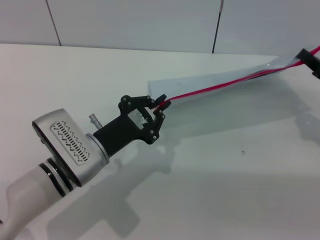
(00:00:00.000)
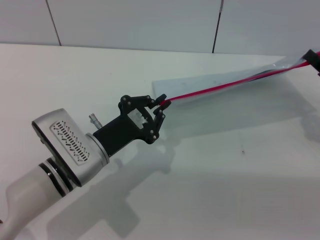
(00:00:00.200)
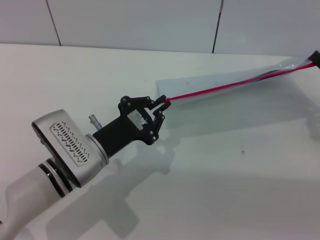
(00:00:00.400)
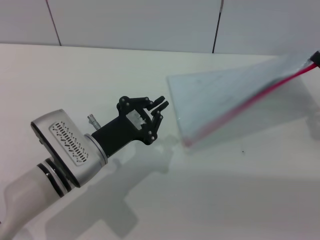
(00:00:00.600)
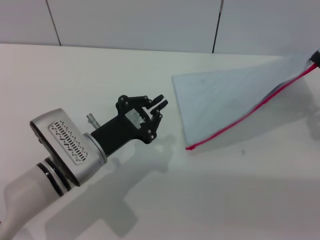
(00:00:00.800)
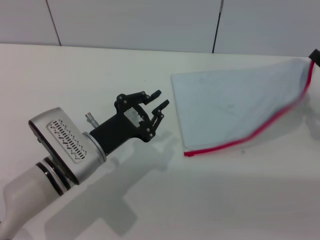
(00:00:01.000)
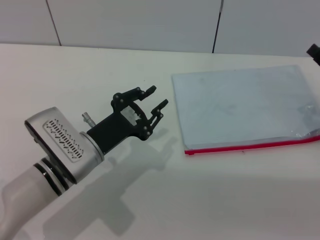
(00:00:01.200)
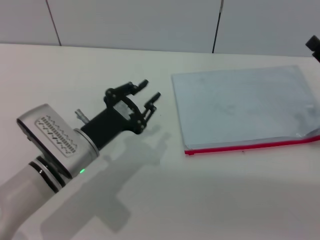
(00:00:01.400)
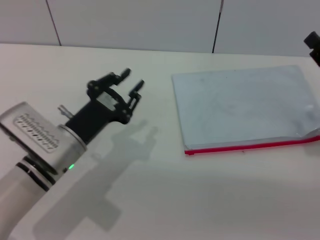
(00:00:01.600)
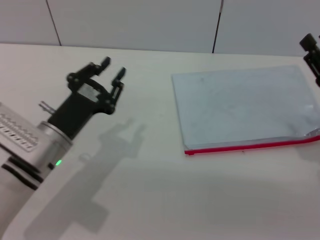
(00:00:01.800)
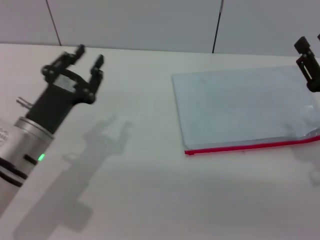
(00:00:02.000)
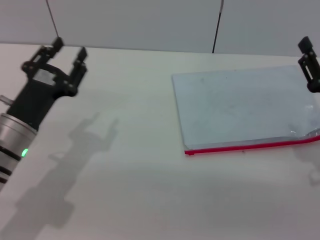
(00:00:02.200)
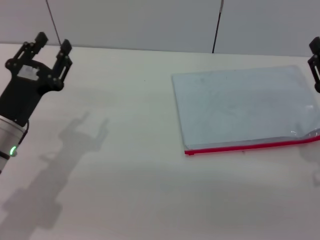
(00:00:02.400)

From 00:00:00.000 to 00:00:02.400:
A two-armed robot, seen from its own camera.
Step, from 00:00:00.800 to 00:00:01.400: Place the transparent plastic bag.
From 00:00:00.000 to 00:00:01.200: The grippers make only small movements.
From 00:00:01.200 to 00:00:02.400: The right gripper goes roughly 5 cm backward and to the left, and opens its fingers; the left gripper moves to the left, some 10 cm, and opens.

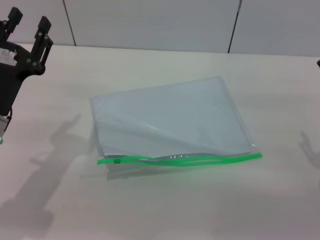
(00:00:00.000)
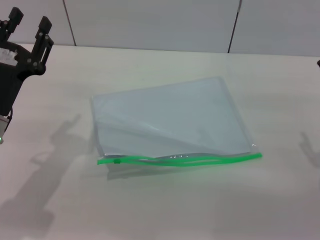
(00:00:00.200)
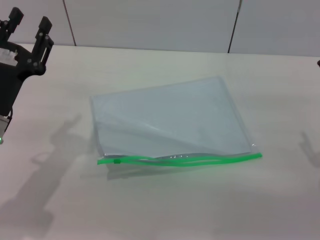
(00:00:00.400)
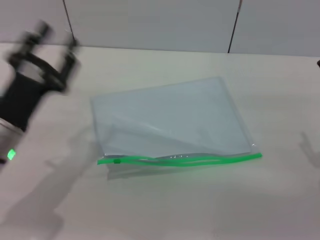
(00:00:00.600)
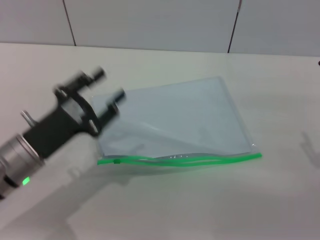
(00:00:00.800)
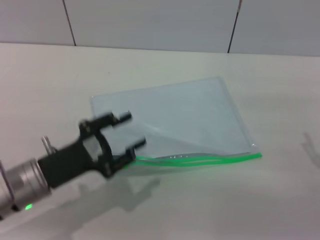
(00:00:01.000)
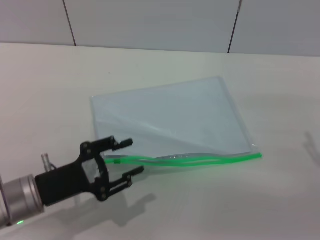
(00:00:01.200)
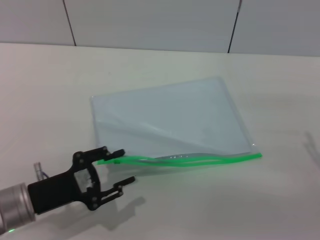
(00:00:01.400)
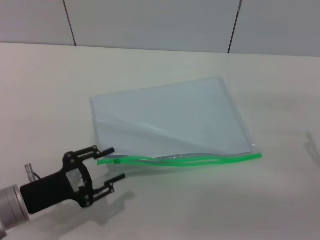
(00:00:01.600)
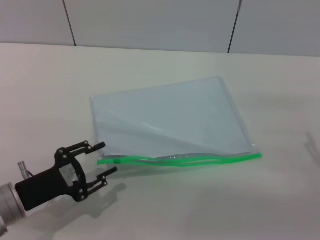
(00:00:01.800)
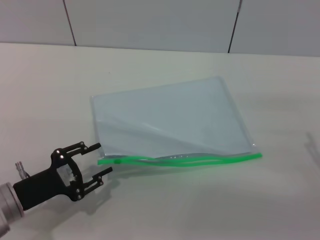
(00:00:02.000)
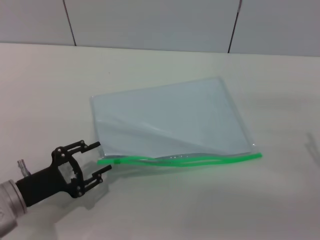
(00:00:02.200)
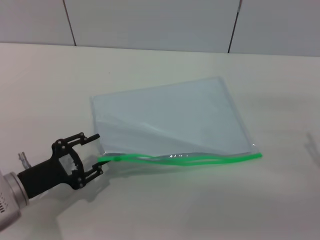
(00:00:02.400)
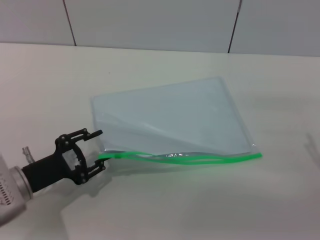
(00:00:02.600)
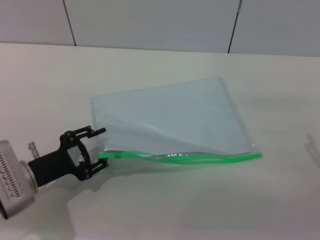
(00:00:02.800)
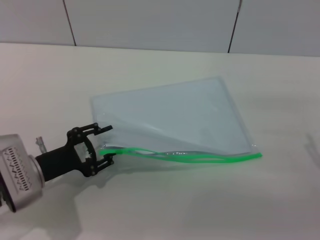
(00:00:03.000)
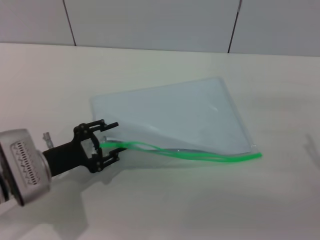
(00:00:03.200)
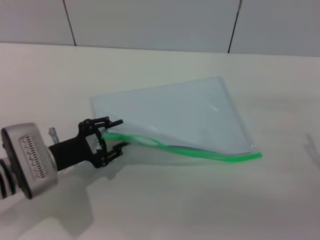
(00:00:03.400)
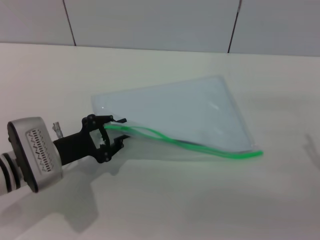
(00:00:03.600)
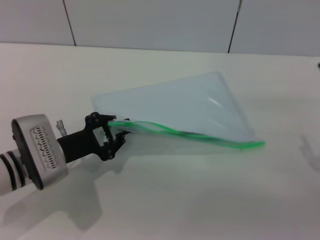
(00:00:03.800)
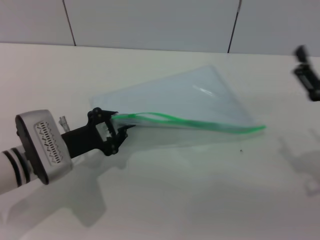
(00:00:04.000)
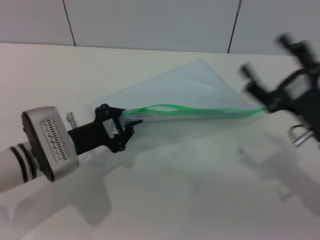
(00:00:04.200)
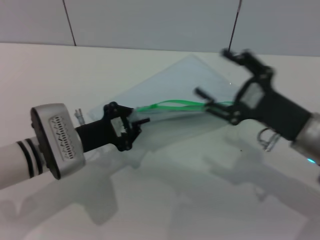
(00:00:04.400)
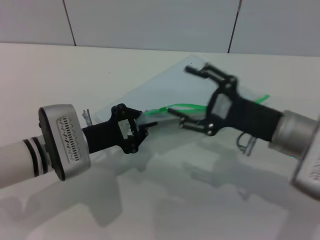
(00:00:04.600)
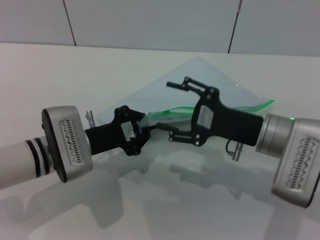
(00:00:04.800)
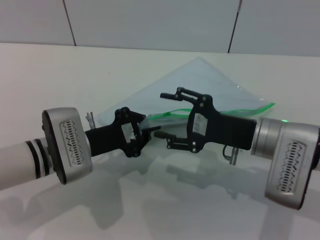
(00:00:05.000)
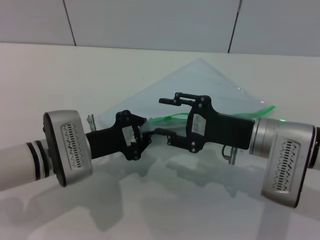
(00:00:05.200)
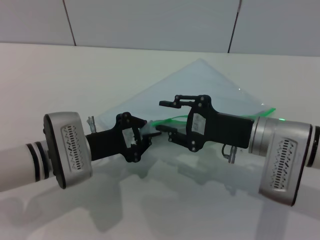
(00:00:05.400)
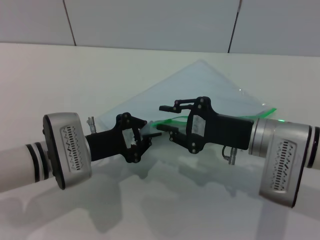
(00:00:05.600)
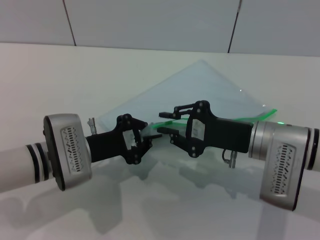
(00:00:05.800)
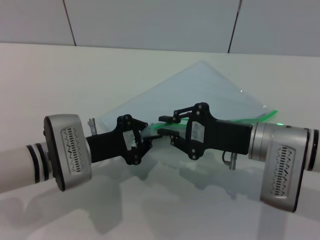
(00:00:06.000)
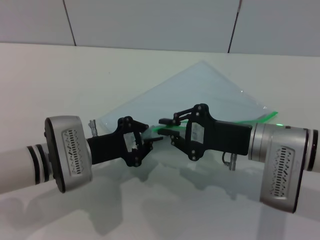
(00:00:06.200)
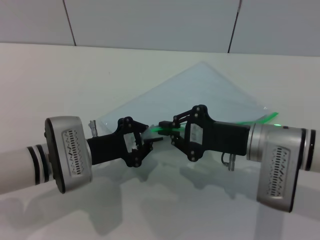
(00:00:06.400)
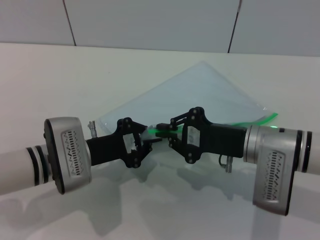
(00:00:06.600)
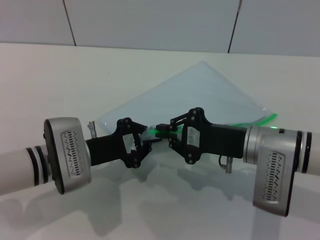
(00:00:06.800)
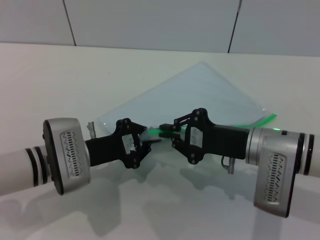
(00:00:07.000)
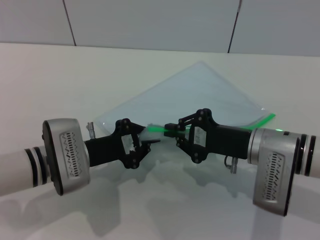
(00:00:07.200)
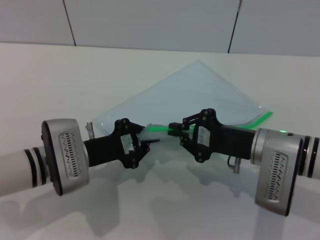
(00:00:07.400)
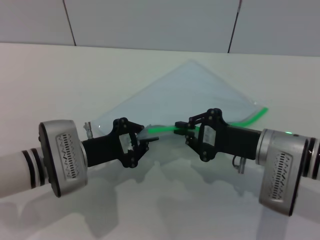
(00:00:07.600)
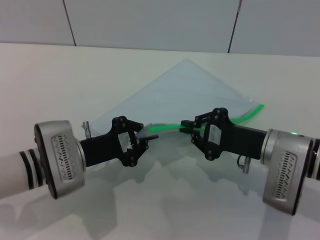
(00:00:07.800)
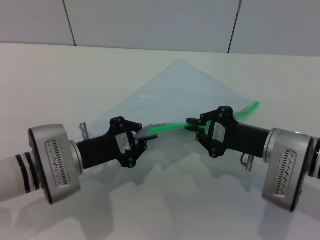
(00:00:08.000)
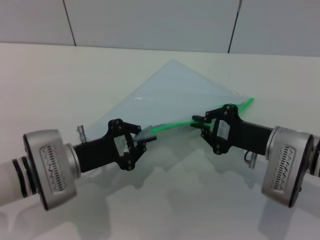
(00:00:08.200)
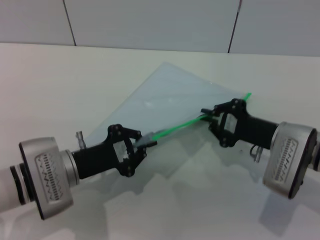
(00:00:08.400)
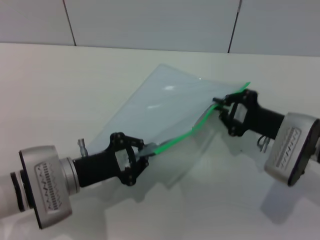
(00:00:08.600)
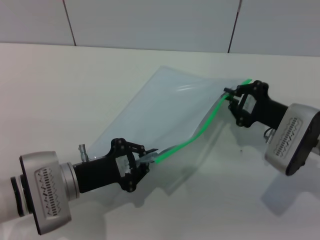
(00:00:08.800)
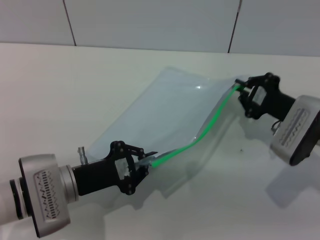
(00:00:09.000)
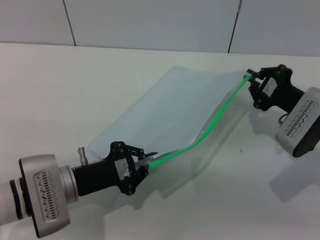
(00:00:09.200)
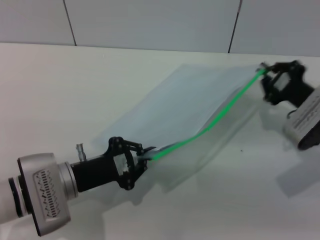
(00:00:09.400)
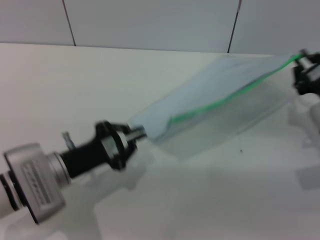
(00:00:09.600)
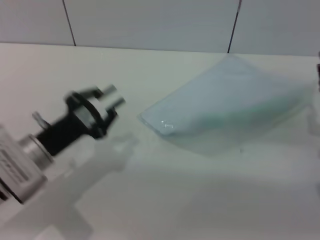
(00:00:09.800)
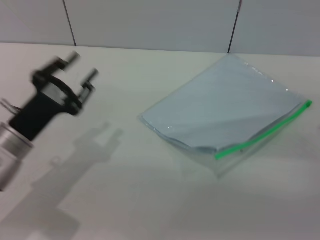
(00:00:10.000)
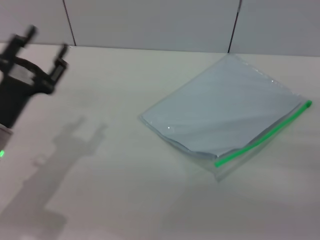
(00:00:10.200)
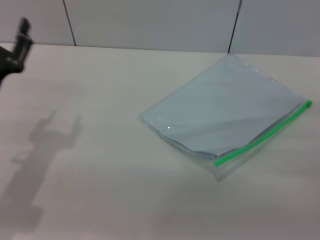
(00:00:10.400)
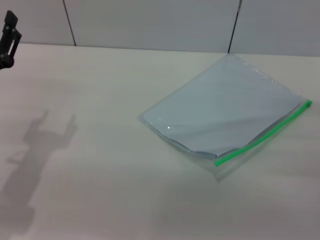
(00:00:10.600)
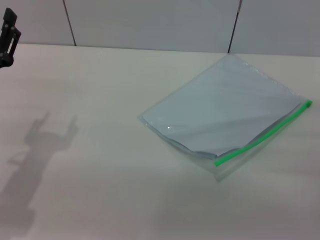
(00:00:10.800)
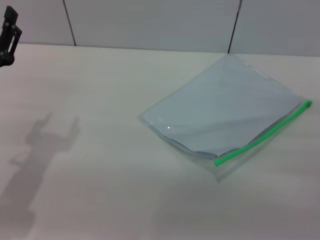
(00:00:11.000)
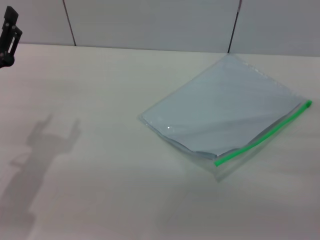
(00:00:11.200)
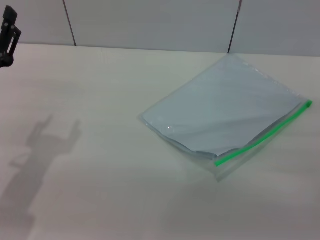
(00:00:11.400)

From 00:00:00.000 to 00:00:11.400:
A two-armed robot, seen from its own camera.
Step, from 00:00:00.000 to 00:00:04.200: Pick up the transparent plastic bag with the left gripper.
Step, from 00:00:04.400 to 00:00:09.400: Pulling up the zipper on the transparent plastic bag with the right gripper to close it.
Step, from 00:00:09.600 to 00:00:09.800: Place the transparent plastic bag.
From 00:00:00.000 to 00:00:01.400: The left gripper travels backward and downward by about 10 cm.
From 00:00:01.400 to 00:00:02.800: The grippers make only small movements.
From 00:00:02.800 to 00:00:04.200: The left gripper shifts some 5 cm forward, and closes its fingers. Meanwhile the right gripper moves some 5 cm.
From 00:00:04.200 to 00:00:05.600: The right gripper heads to the left, covering roughly 10 cm.
From 00:00:05.600 to 00:00:07.200: The right gripper closes.
From 00:00:07.200 to 00:00:08.600: The right gripper goes about 5 cm to the right.
From 00:00:08.600 to 00:00:10.000: The right gripper goes approximately 10 cm to the right and backward, and opens its fingers. Meanwhile the left gripper changes place by about 5 cm.
From 00:00:10.000 to 00:00:11.400: The left gripper opens up.
